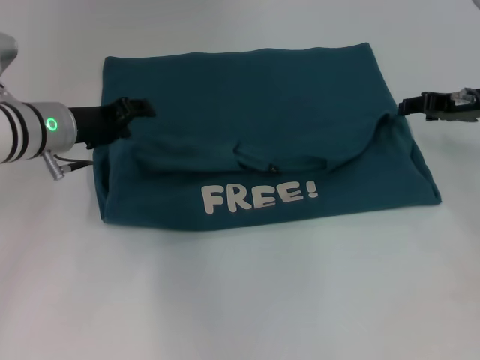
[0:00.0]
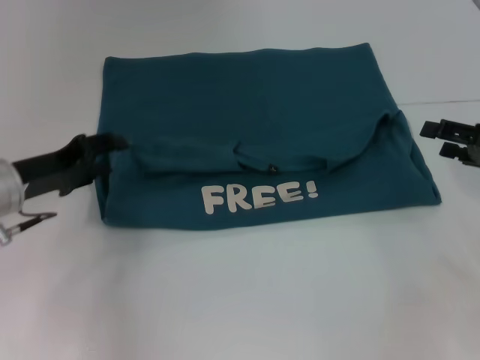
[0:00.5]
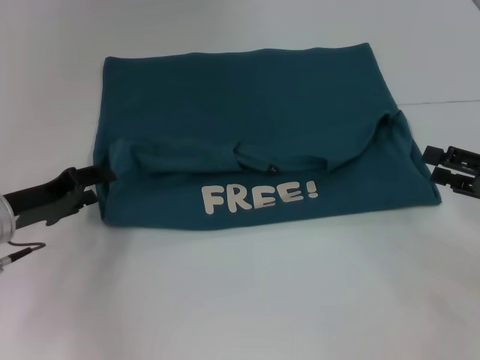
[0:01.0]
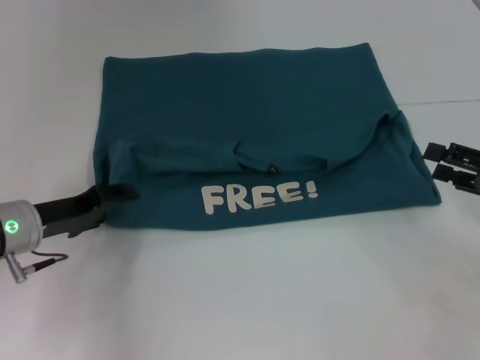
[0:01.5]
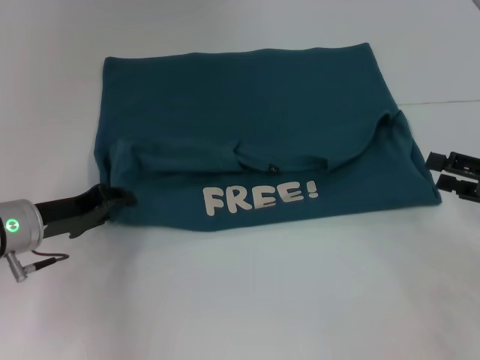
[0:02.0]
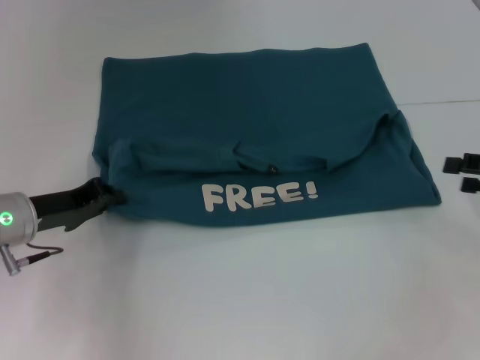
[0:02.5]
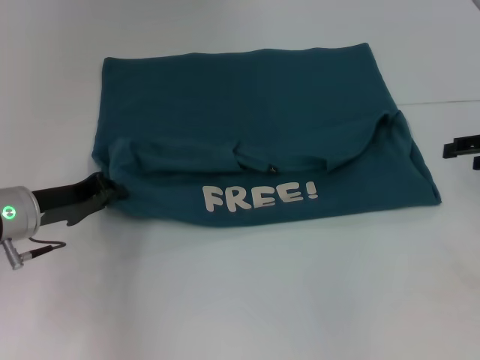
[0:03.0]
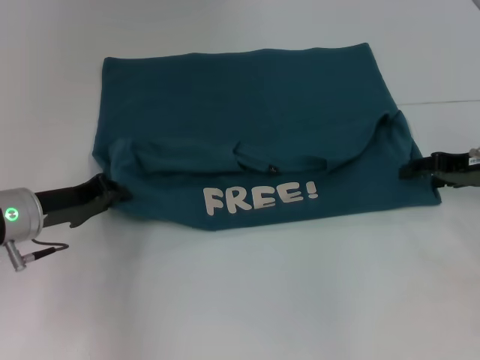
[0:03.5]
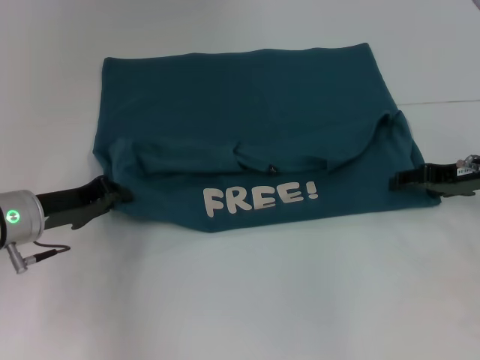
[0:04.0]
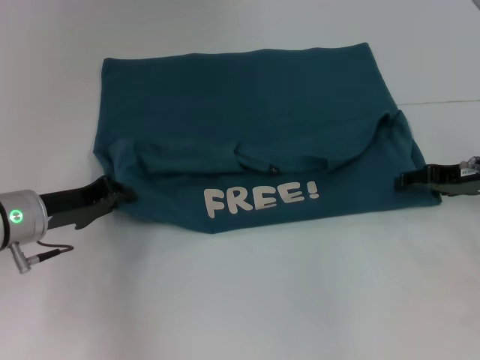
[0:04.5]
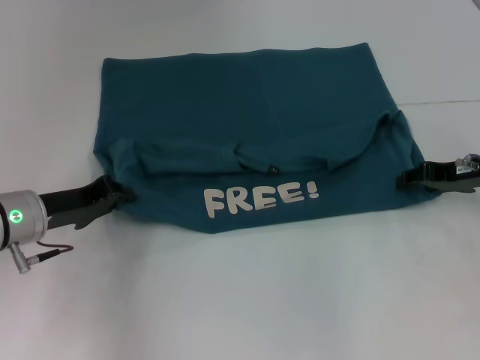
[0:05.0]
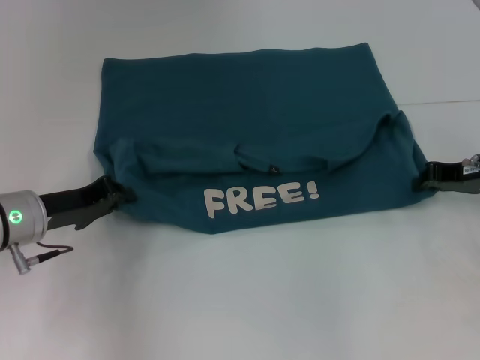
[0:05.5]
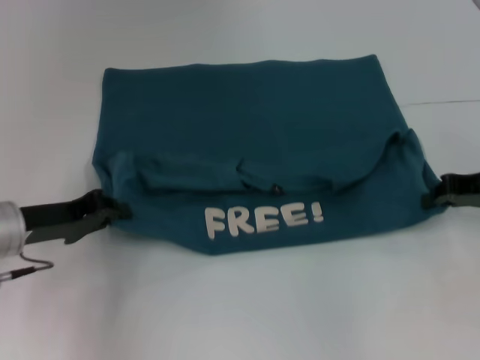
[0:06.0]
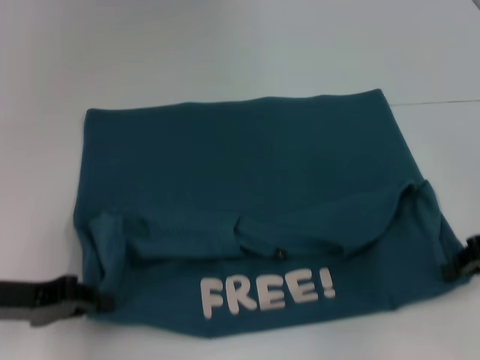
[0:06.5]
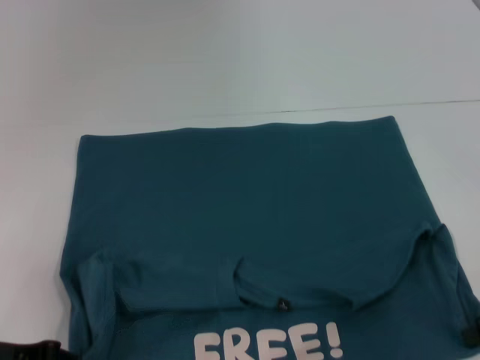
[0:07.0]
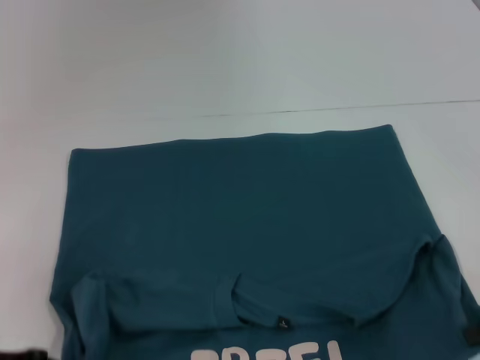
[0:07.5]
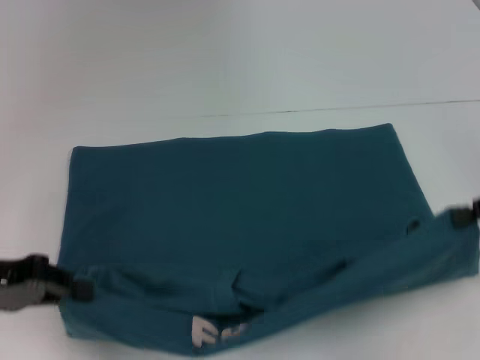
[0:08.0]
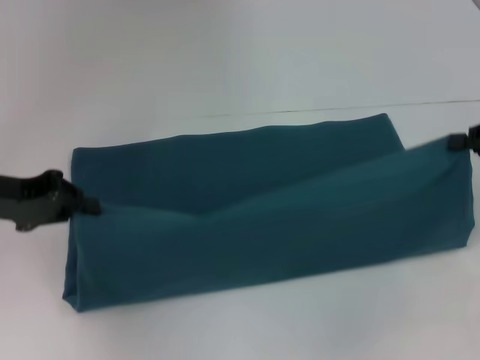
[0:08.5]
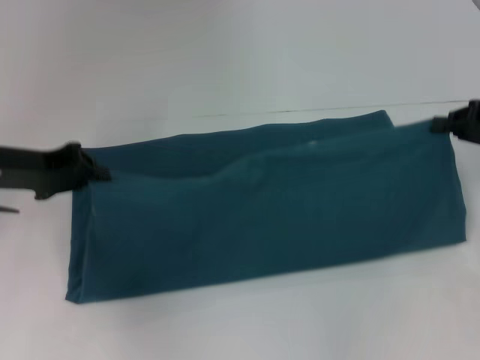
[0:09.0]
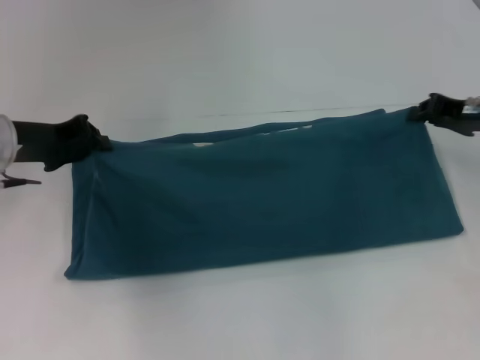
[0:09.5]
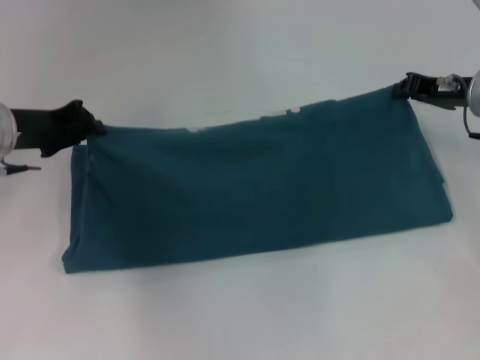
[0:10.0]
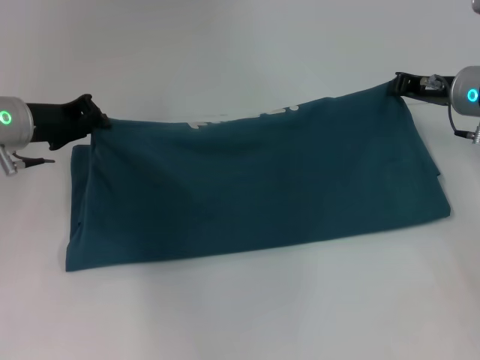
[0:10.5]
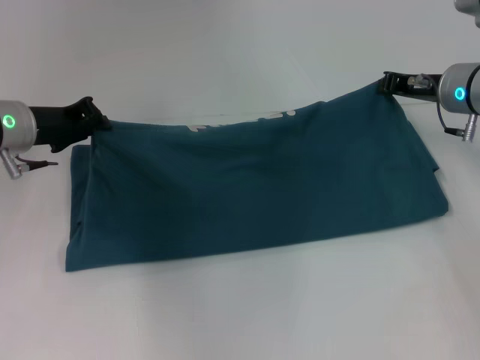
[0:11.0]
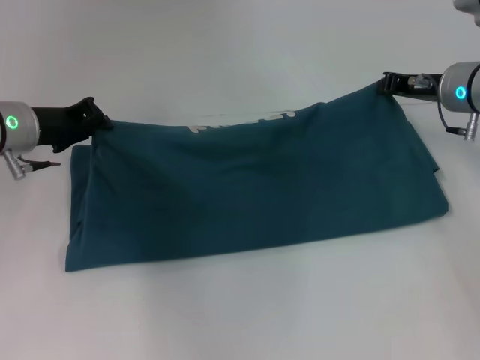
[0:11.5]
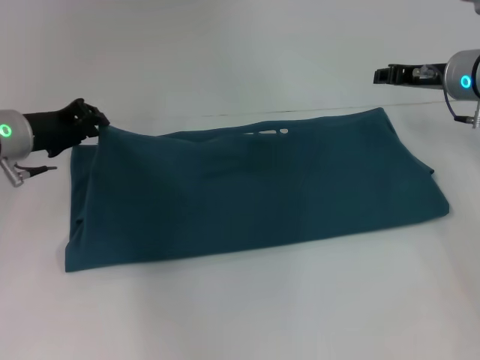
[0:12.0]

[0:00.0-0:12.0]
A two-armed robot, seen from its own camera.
Step, 0:00.5 to 0:06.5: Pull the clothes with your left hand.
Step, 0:00.5 to 0:06.5: Pull the clothes with your right hand.
0:00.0 to 0:02.0: The left gripper shifts approximately 10 cm backward and downward. The right gripper is displaced backward by roughly 15 cm, and opens.
0:02.0 to 0:04.0: The right gripper heads forward, covering some 10 cm; the left gripper closes.
0:04.0 to 0:06.0: The right gripper closes.
0:06.0 to 0:08.0: The right gripper shifts about 5 cm backward. The left gripper goes some 5 cm upward and backward.
0:08.0 to 0:10.0: The left gripper goes some 10 cm forward; the right gripper goes some 15 cm forward and to the left.
0:10.0 to 0:12.0: The grippers stay close to where they were, moving slightly.

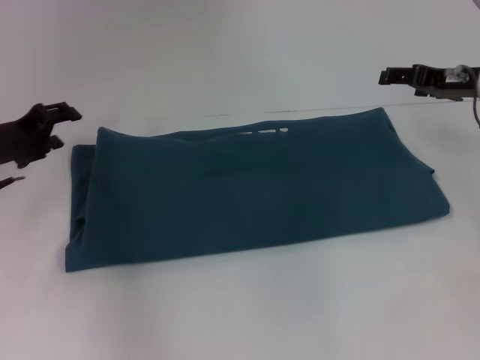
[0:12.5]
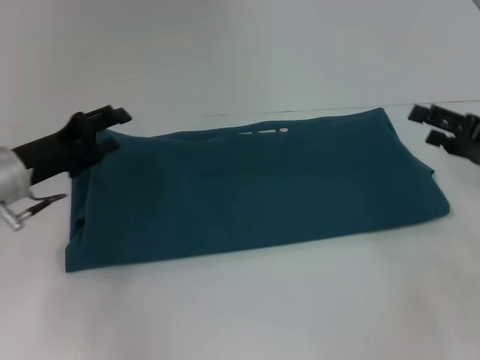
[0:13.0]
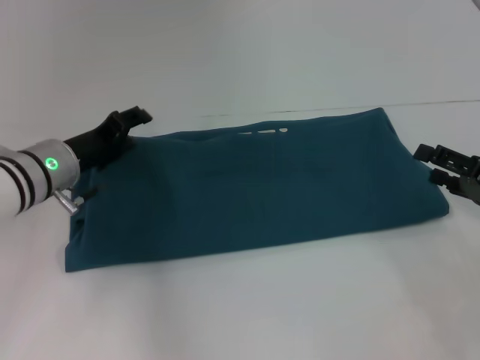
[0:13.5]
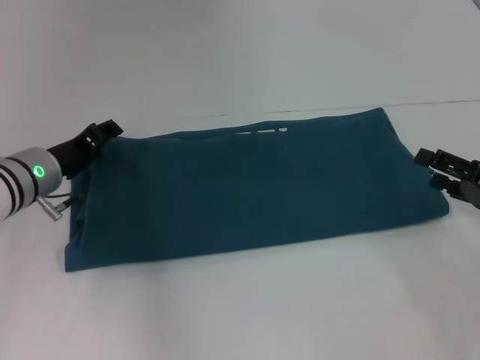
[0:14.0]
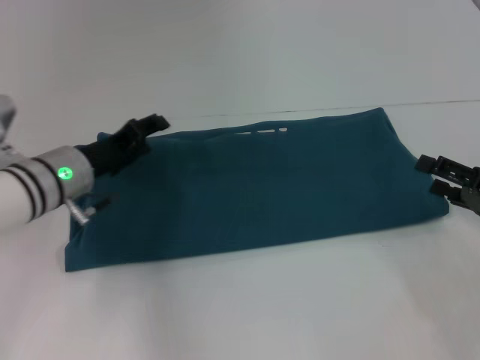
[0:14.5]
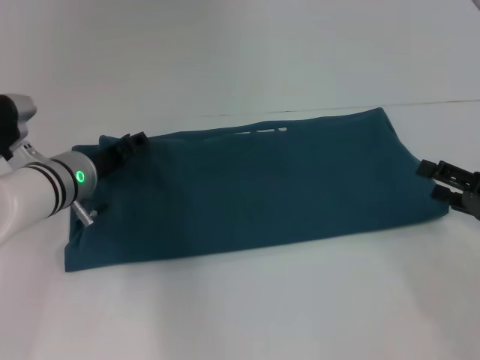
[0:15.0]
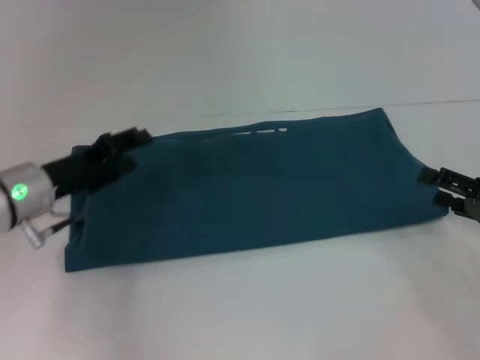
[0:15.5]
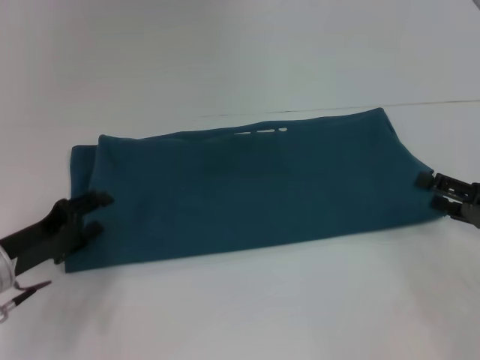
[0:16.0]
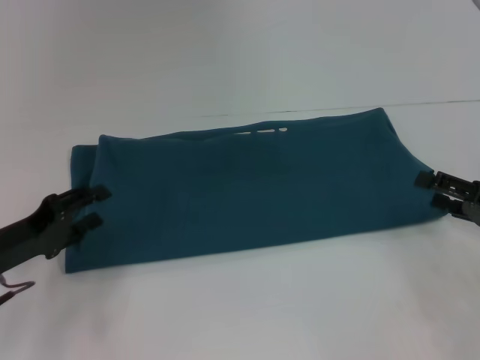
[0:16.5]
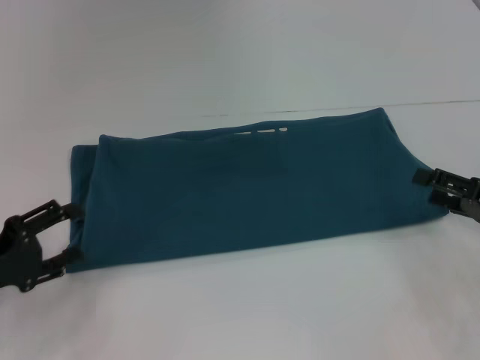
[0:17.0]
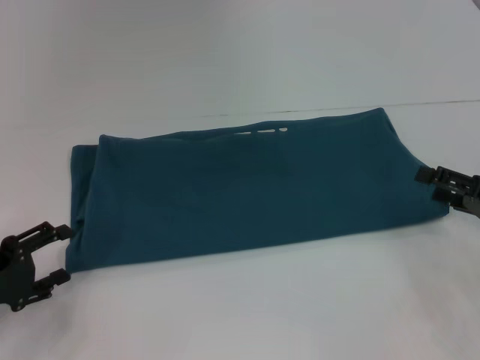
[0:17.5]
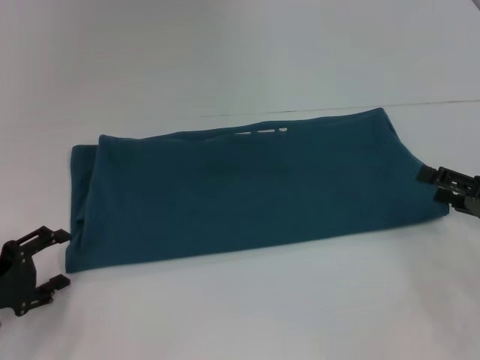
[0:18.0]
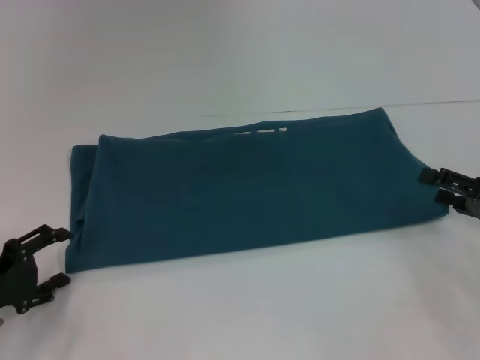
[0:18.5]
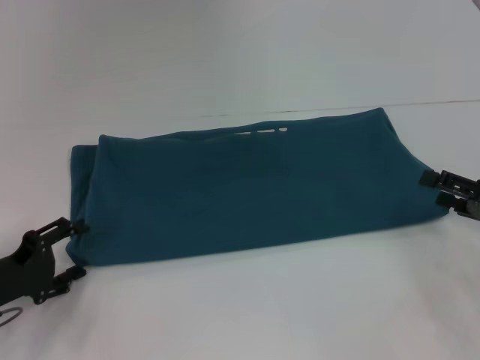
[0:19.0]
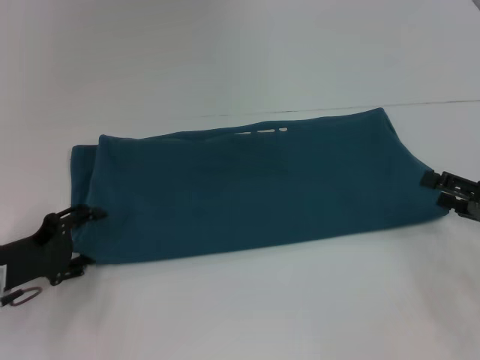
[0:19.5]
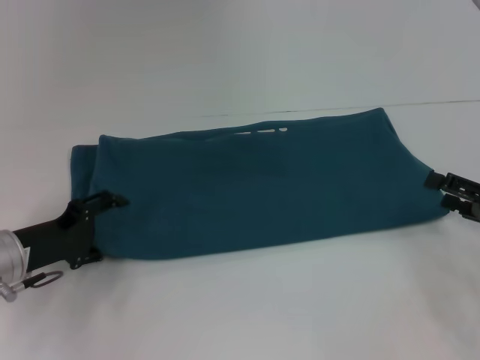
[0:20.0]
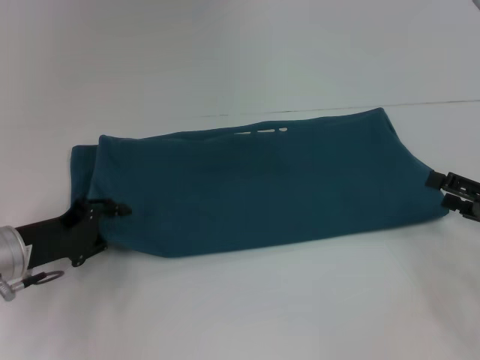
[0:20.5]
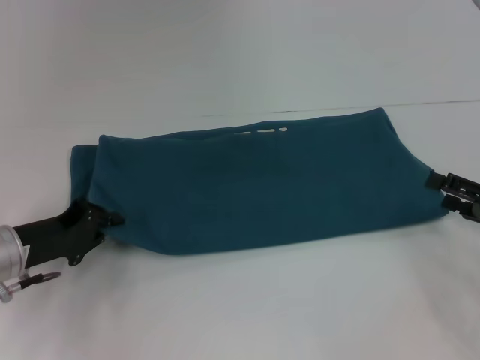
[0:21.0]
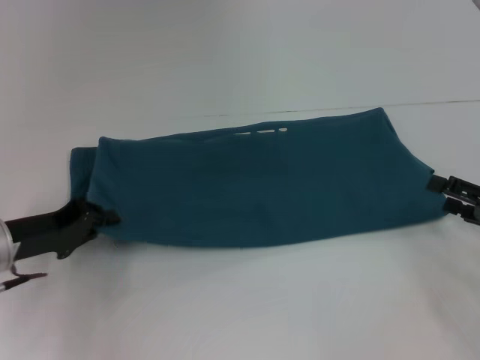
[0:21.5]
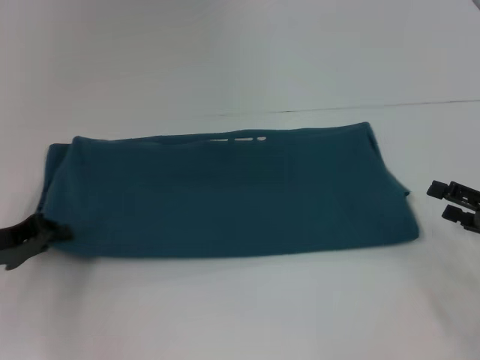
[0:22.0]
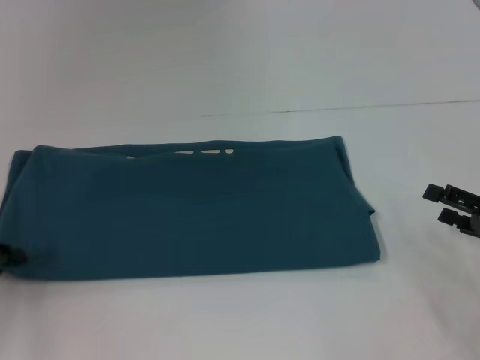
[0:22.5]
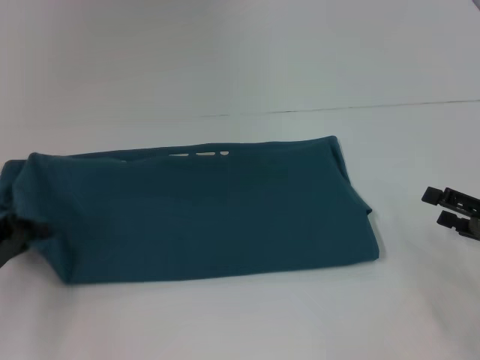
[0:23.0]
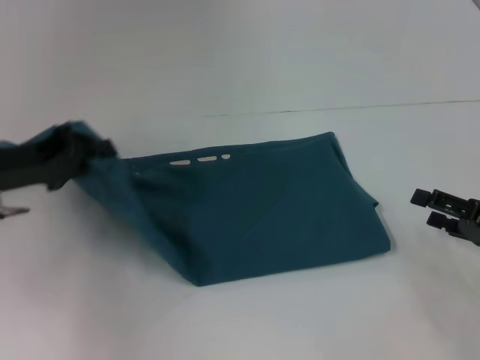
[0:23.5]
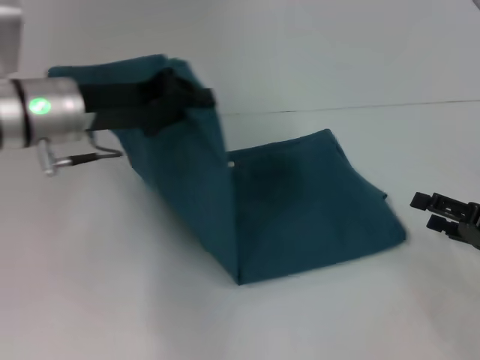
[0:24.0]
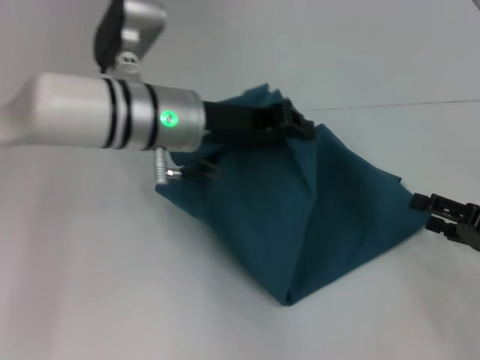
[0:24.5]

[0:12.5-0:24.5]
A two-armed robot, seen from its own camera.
0:12.5 to 0:14.5: The left gripper moves to the right, some 10 cm. Meanwhile the right gripper travels backward and downward by about 15 cm.
0:14.5 to 0:16.5: The left gripper shifts about 15 cm backward and to the left.
0:16.5 to 0:18.5: The left gripper moves approximately 5 cm.
0:18.5 to 0:20.5: The left gripper moves forward and to the right, about 10 cm.
0:20.5 to 0:22.5: The left gripper shifts approximately 10 cm to the left, and closes.
0:22.5 to 0:24.5: The left gripper is displaced to the right and upward by roughly 30 cm.

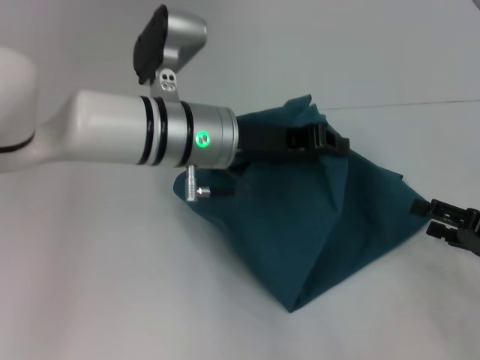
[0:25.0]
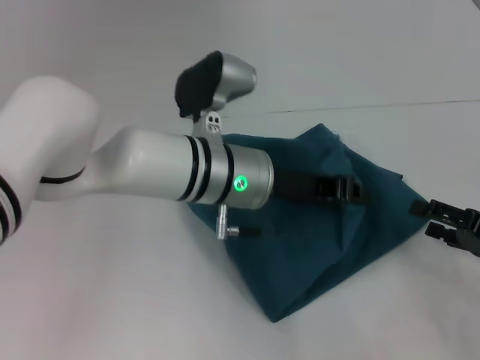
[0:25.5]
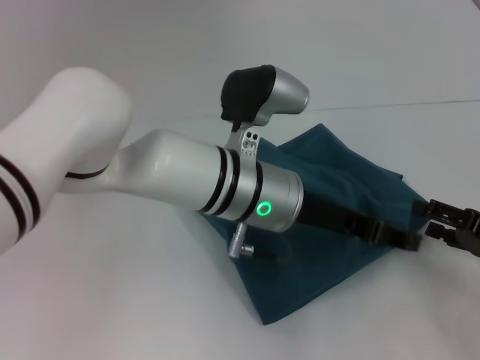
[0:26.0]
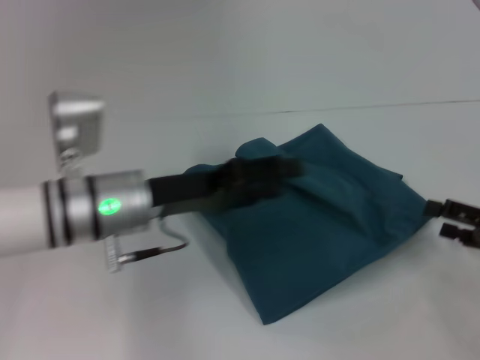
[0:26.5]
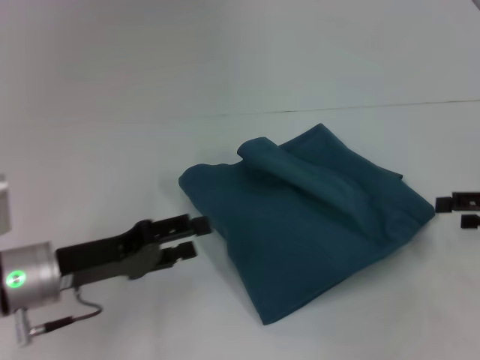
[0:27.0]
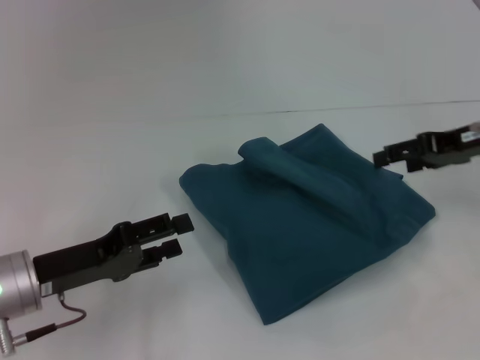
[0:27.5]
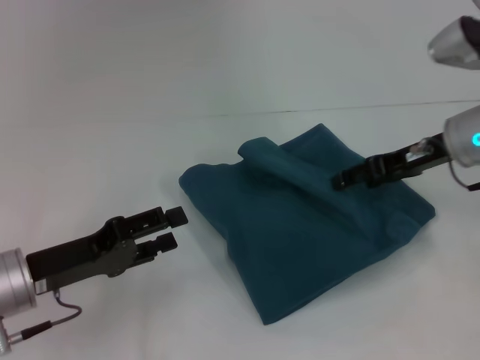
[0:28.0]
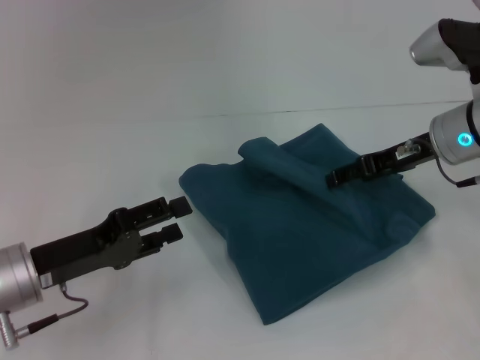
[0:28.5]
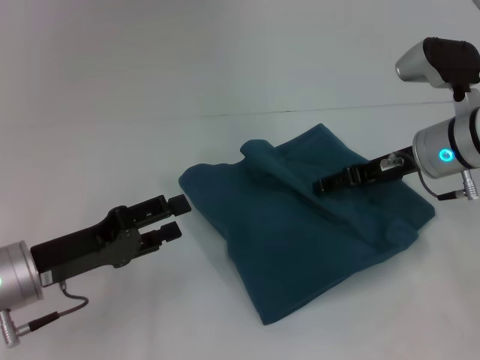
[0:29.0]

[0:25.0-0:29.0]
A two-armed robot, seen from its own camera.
0:25.0 to 0:27.0: The left gripper moves to the left, downward and backward, about 20 cm, and opens. Meanwhile the right gripper shifts some 5 cm upward.
0:27.0 to 0:29.0: The right gripper travels to the left and forward by some 15 cm.
